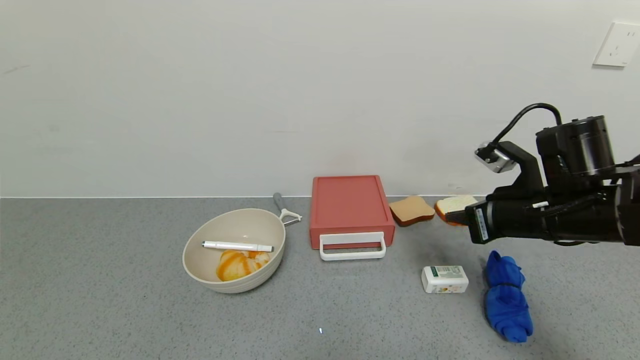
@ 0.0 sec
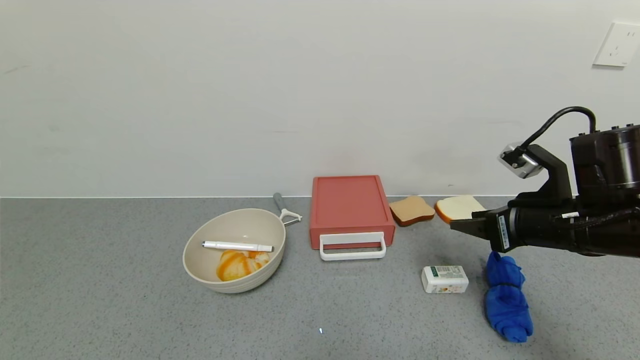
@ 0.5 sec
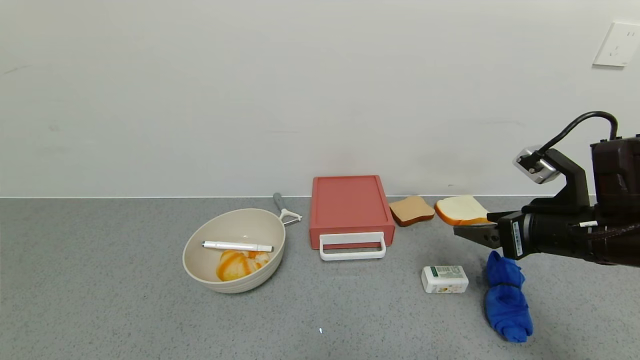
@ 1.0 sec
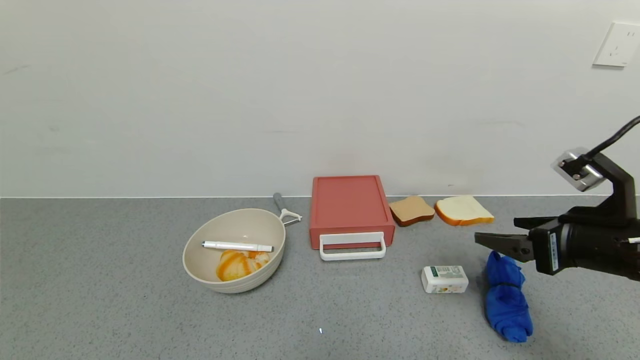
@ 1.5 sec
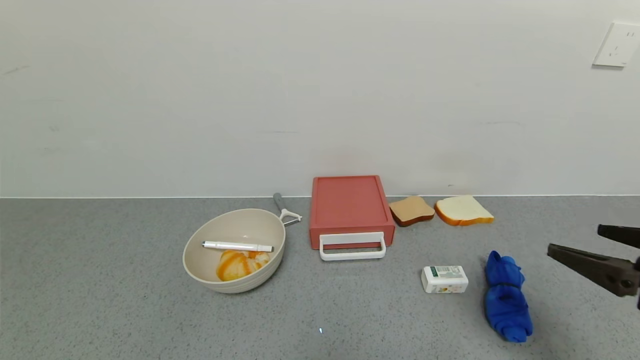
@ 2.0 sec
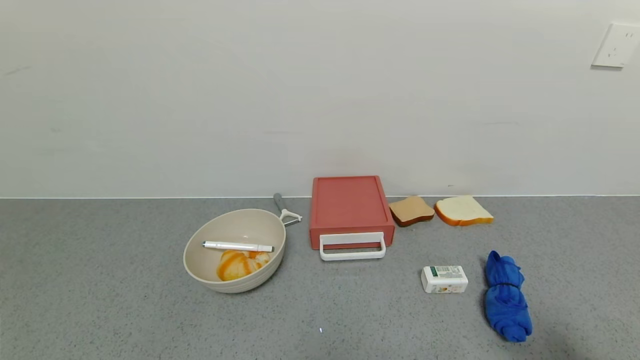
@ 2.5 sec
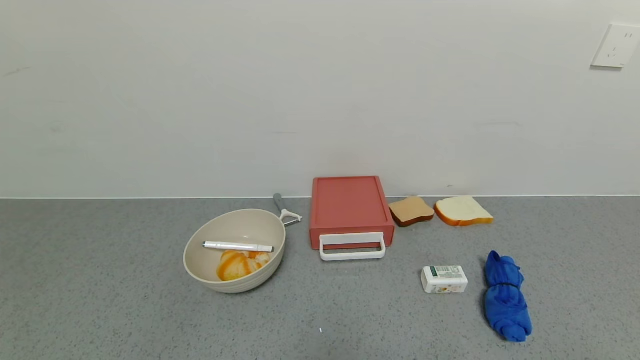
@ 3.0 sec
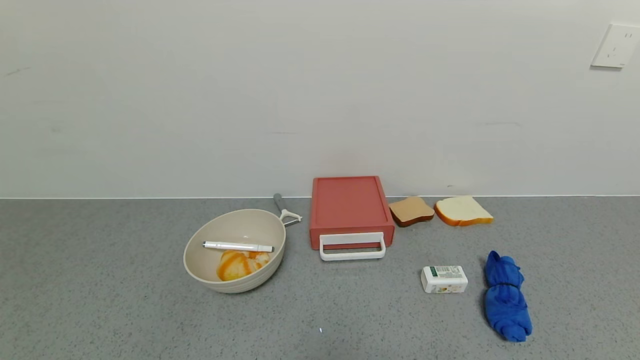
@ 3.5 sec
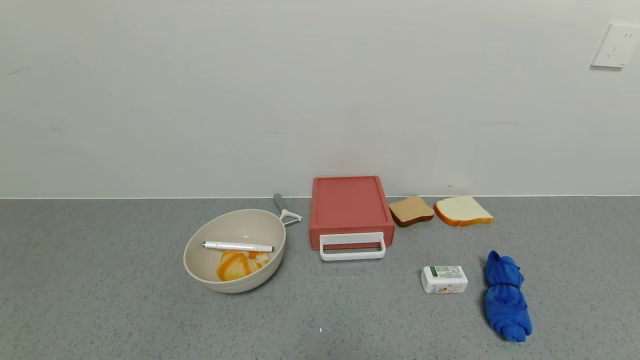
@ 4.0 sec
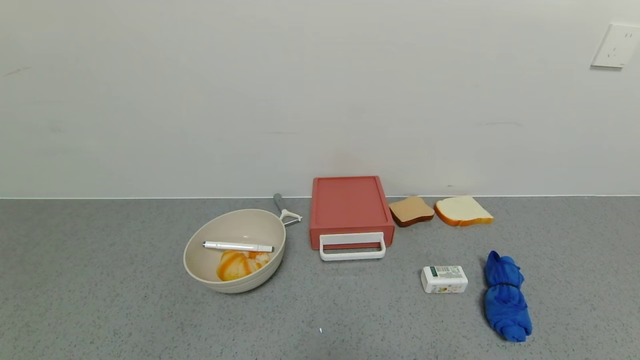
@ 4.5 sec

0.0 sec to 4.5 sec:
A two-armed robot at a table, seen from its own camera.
Task of the whole recording: use the gripper to open the drawer and close the red drawer.
0.0 sec to 2.0 sec: The right gripper heads backward and to the right, covering about 15 cm, and opens its fingers.
2.0 sec to 4.5 sec: The right gripper moves backward and downward, roughly 20 cm.

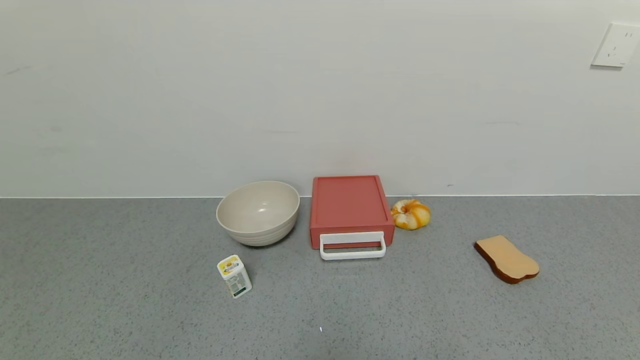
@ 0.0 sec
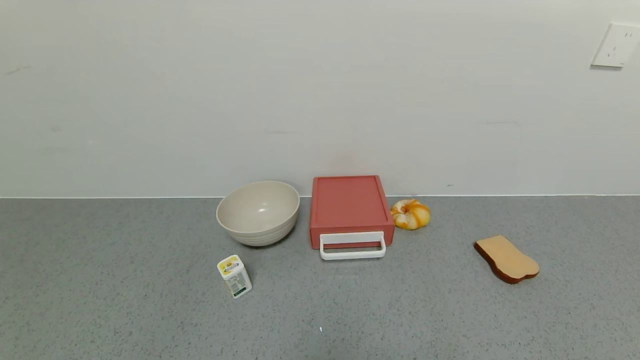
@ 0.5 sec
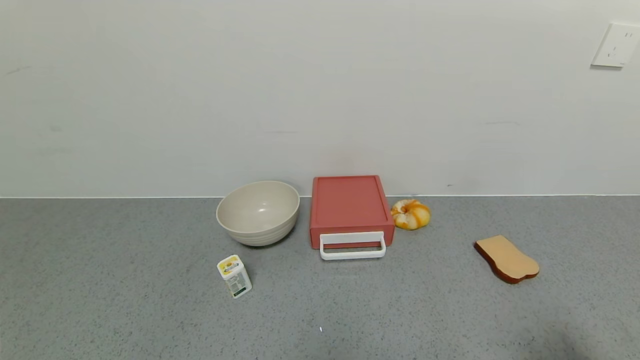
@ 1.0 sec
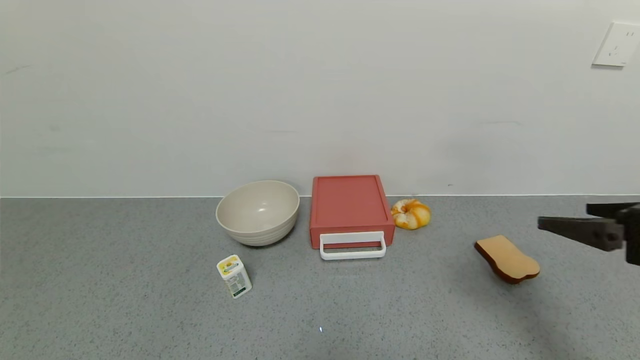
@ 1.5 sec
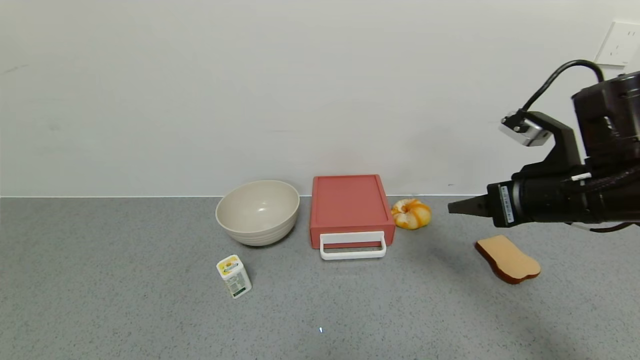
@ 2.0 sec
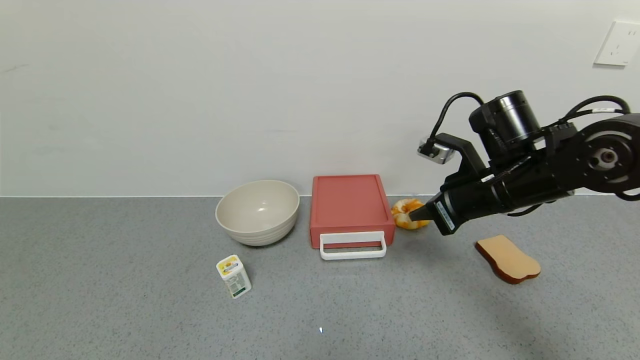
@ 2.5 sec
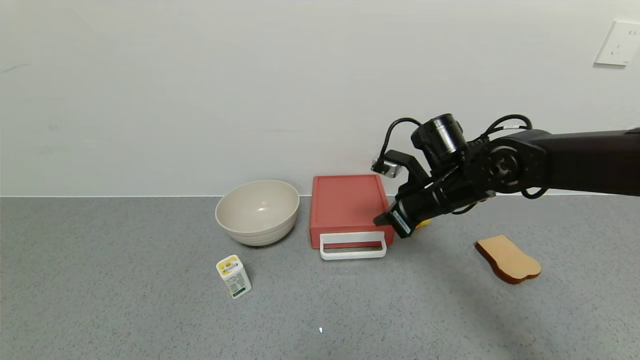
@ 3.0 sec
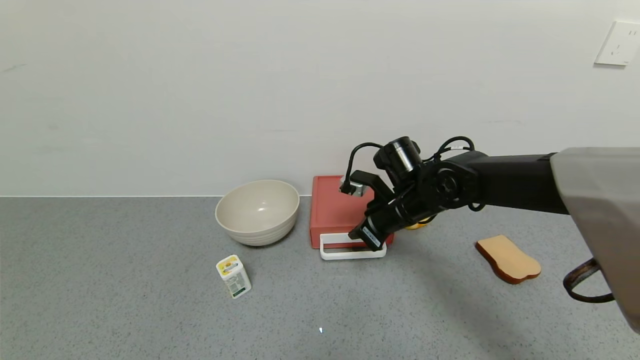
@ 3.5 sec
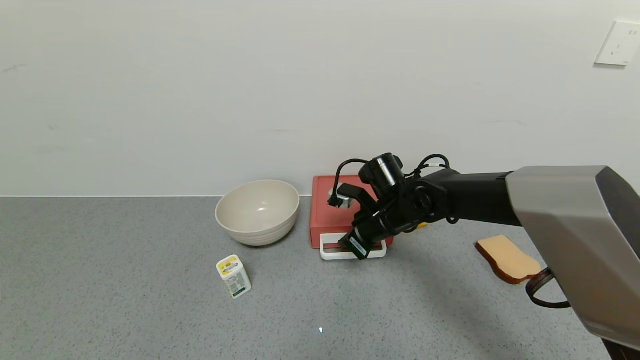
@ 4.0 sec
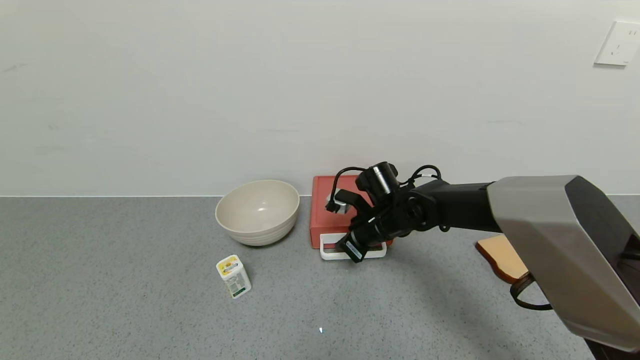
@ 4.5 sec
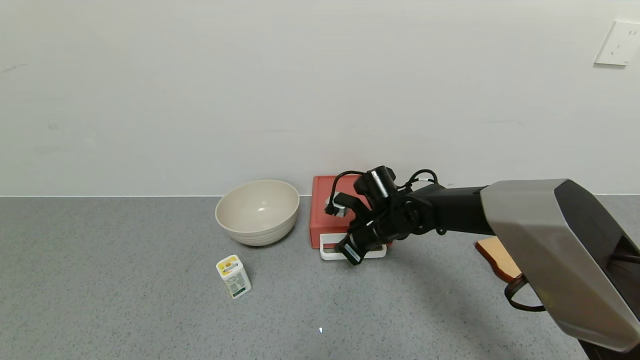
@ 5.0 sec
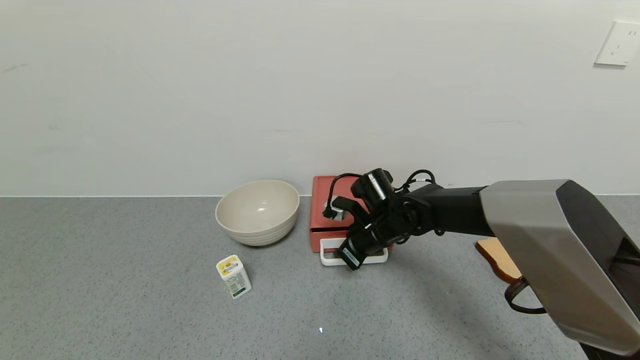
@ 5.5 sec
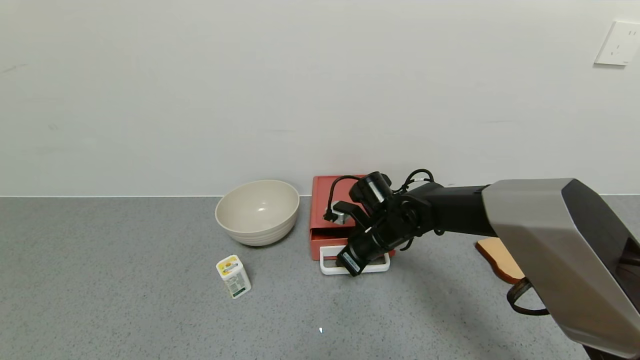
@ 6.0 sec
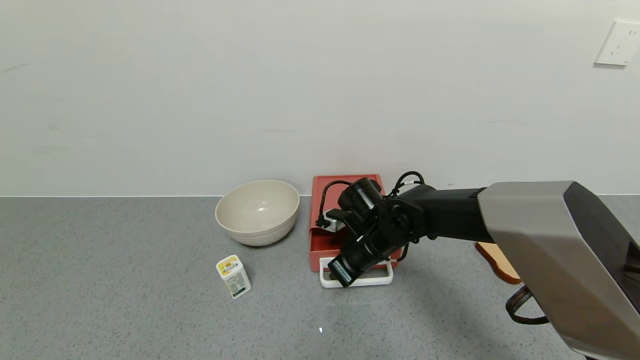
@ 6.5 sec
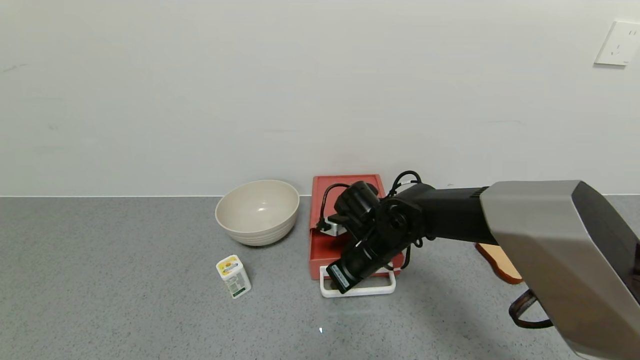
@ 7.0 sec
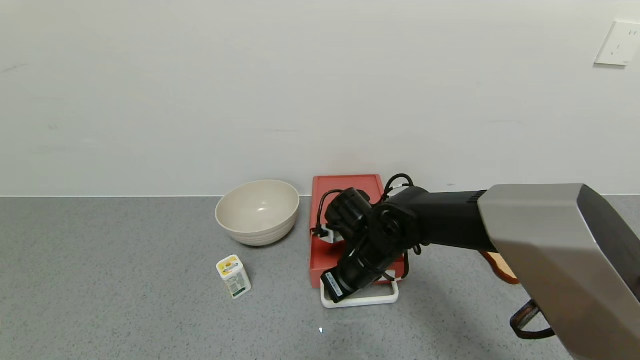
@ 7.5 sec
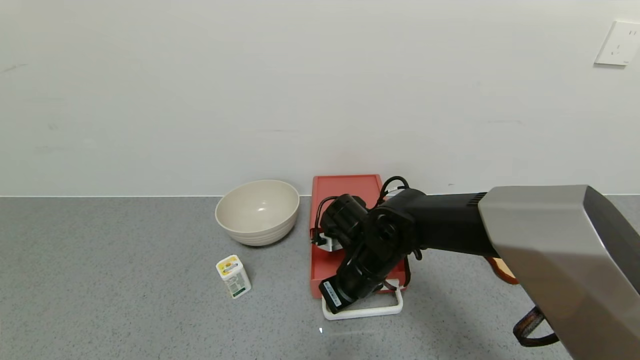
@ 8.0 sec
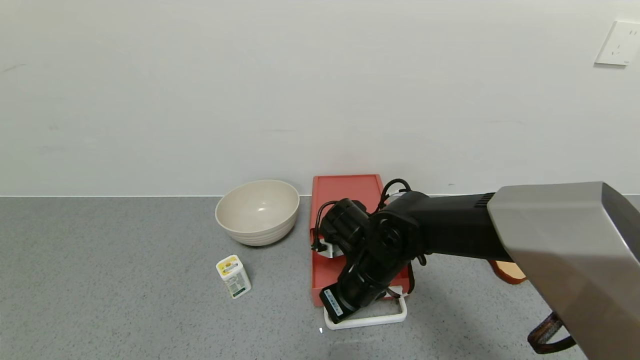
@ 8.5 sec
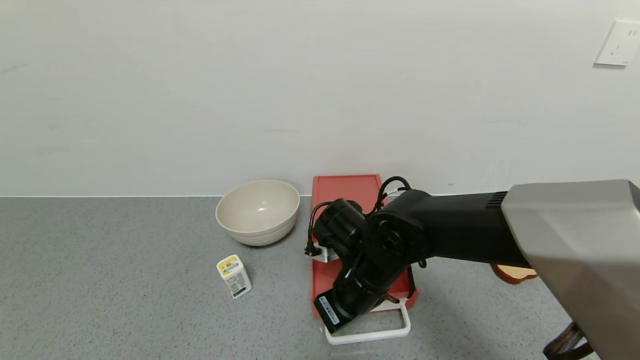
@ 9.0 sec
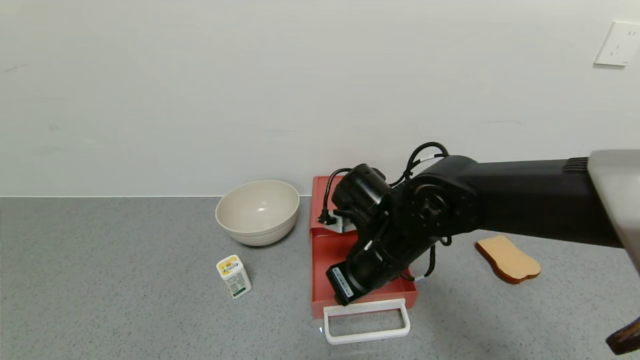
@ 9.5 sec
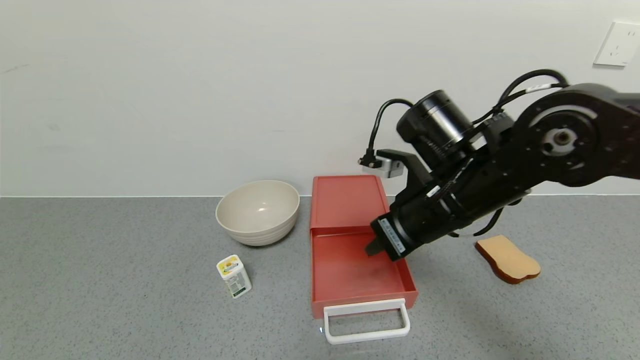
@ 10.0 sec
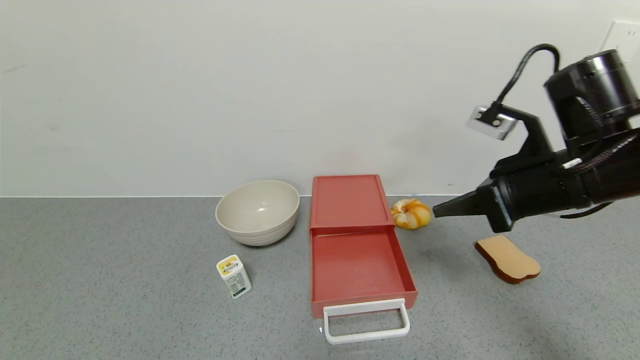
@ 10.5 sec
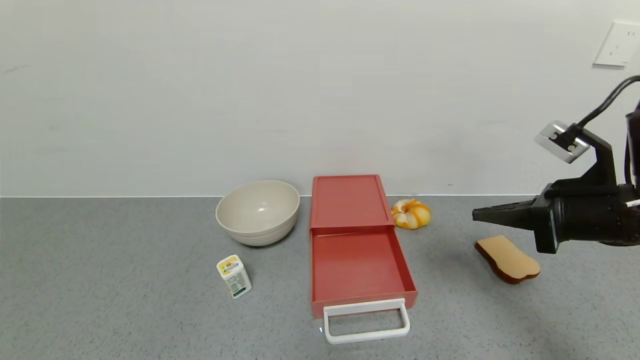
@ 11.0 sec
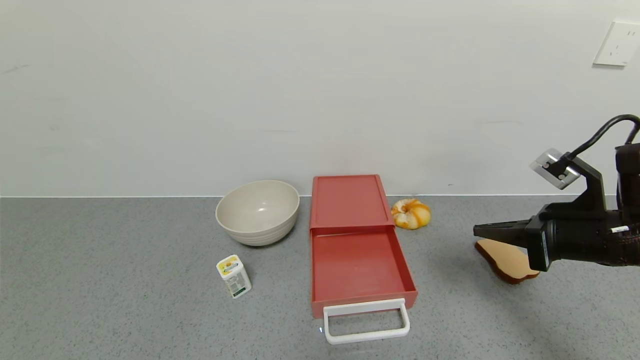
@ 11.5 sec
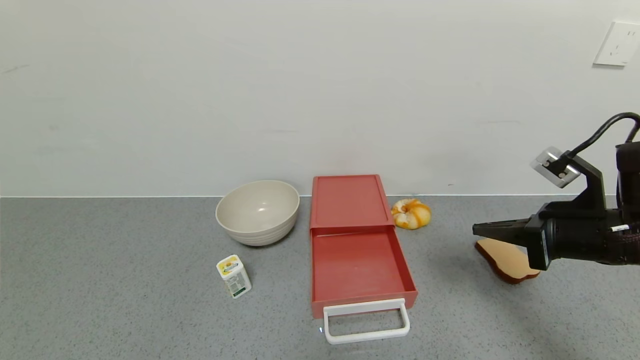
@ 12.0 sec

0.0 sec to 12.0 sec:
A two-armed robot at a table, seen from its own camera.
Task of the whole recording: use the gripper to open the drawer and close the red drawer.
Step, 0.0 sec to 9.0 sec: Open the red drawer with the right gripper.
0.0 sec to 2.0 sec: The right gripper heads forward, covering some 30 cm, and closes its fingers.
2.0 sec to 4.0 sec: The right gripper is displaced to the left, forward and downward by approximately 25 cm, and closes.
4.0 sec to 6.0 sec: There are only small adjustments of the grippers.
6.0 sec to 8.0 sec: The right gripper heads backward, covering about 5 cm.
8.0 sec to 10.0 sec: The right gripper shifts about 15 cm upward and to the right.
10.0 sec to 12.0 sec: The right gripper goes some 20 cm to the right.

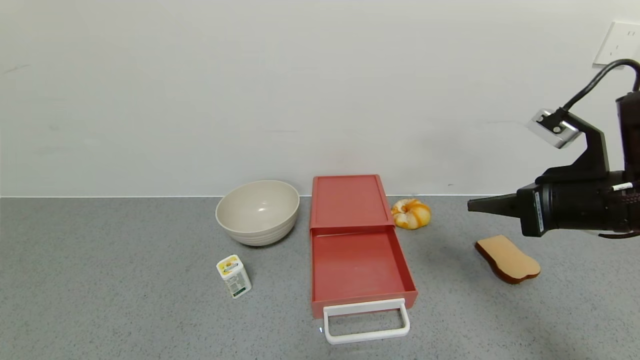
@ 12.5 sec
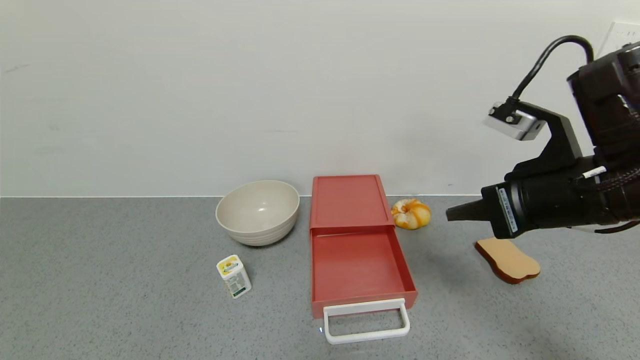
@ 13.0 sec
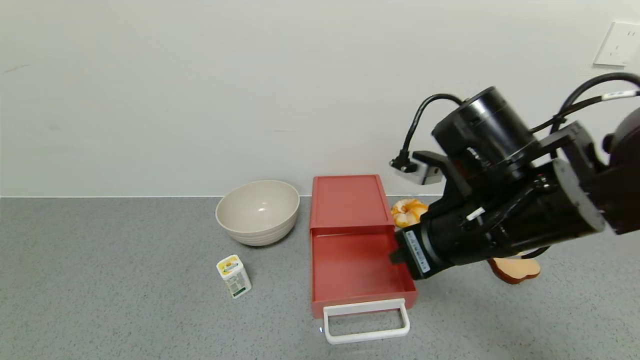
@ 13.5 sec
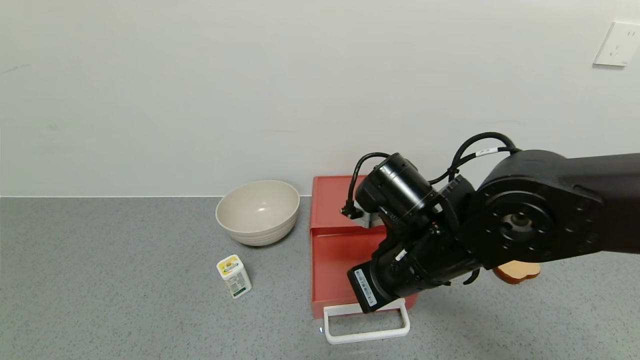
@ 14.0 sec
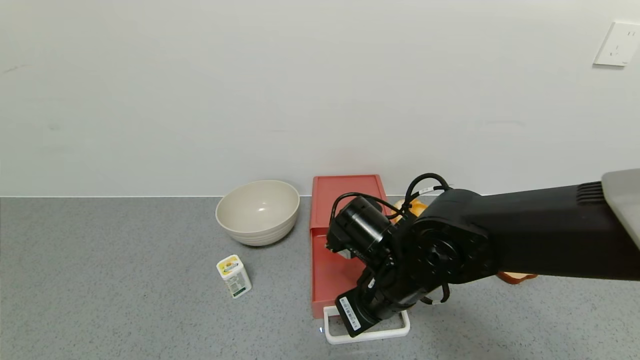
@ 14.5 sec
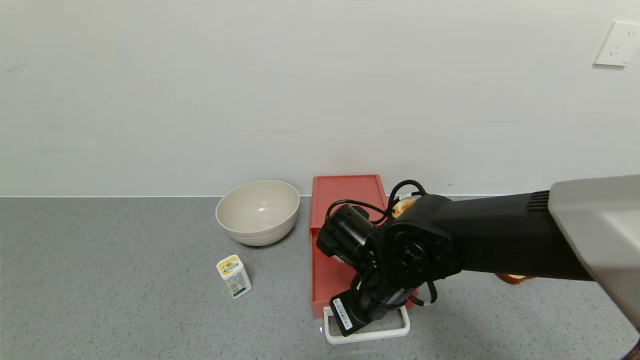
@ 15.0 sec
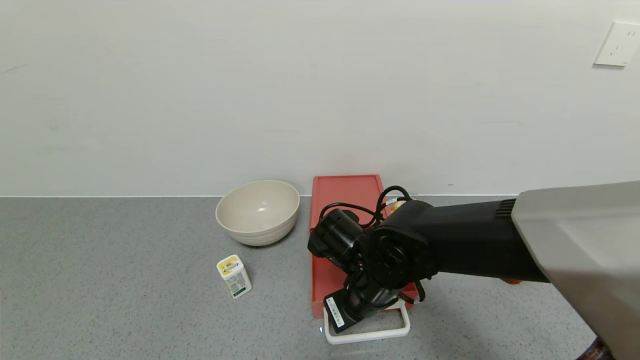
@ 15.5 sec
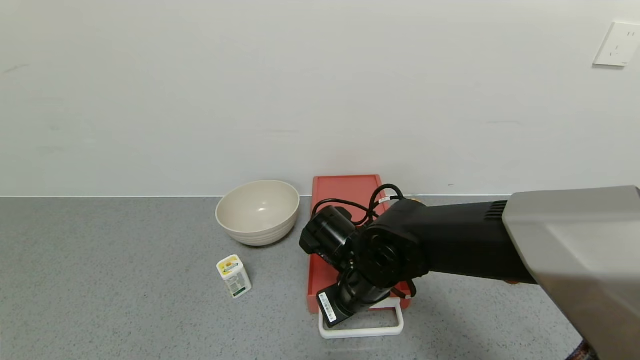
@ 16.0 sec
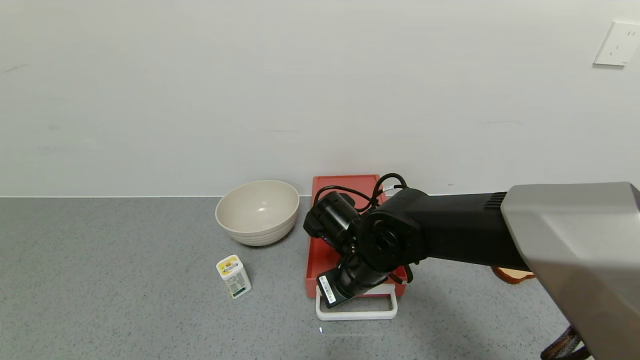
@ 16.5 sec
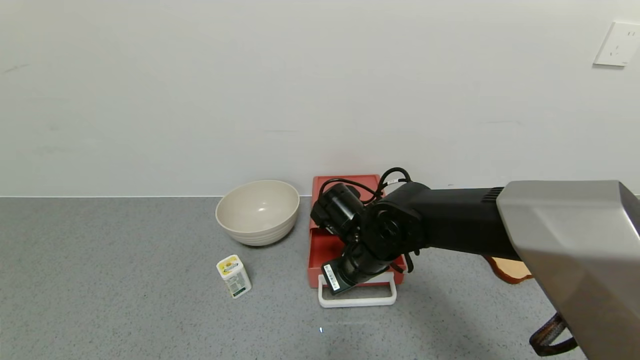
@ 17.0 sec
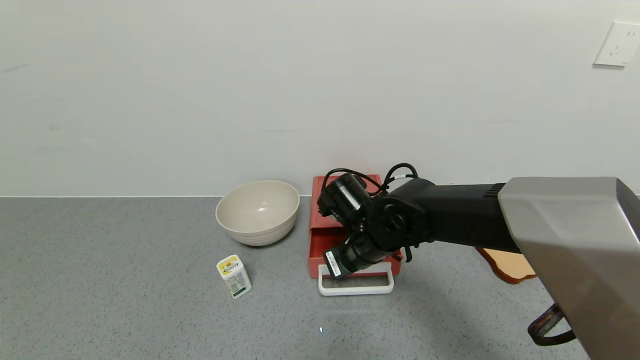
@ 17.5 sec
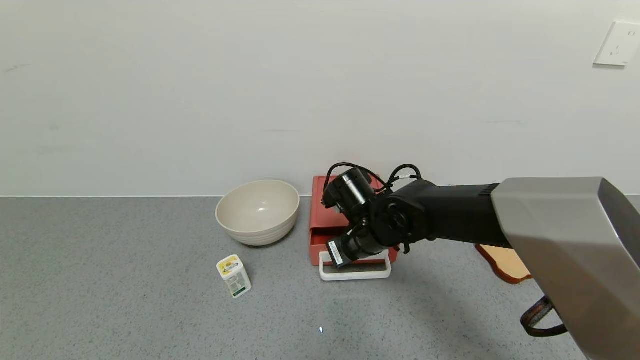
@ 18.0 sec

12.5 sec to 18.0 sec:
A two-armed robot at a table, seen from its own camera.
Task of the whole recording: use the gripper to open the drawer and close the red drawer.
12.5 sec to 14.5 sec: The right gripper heads to the left and downward, covering about 25 cm.
14.5 sec to 16.0 sec: There are only small adjustments of the grippers.
16.0 sec to 18.0 sec: The right gripper heads forward, covering some 5 cm.
